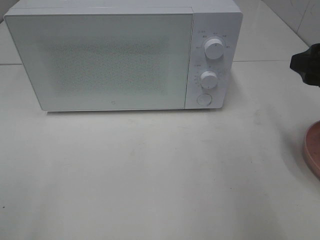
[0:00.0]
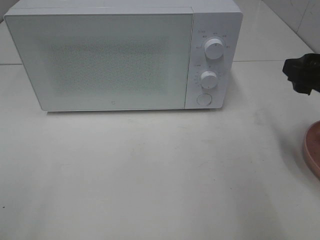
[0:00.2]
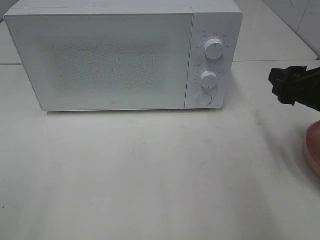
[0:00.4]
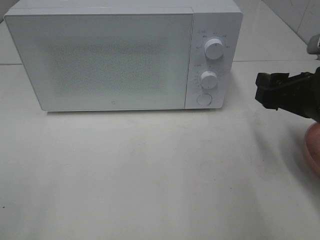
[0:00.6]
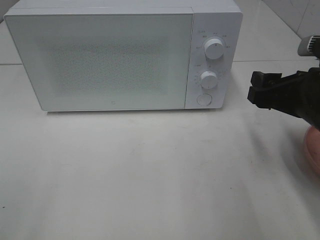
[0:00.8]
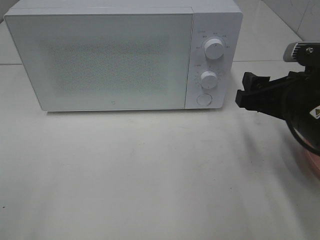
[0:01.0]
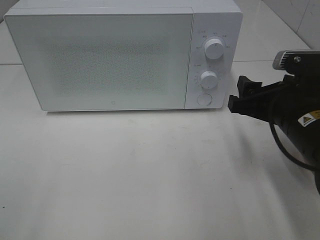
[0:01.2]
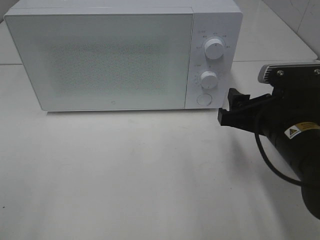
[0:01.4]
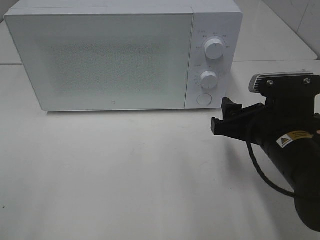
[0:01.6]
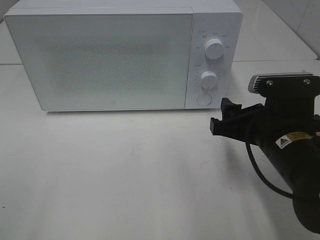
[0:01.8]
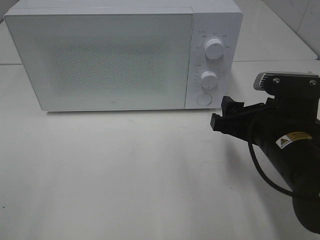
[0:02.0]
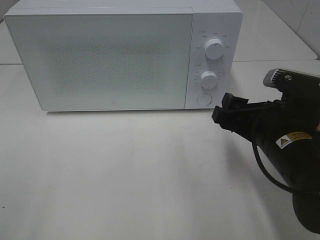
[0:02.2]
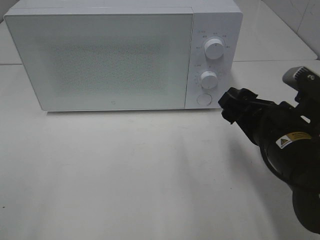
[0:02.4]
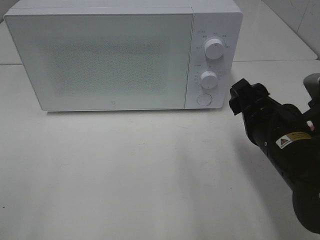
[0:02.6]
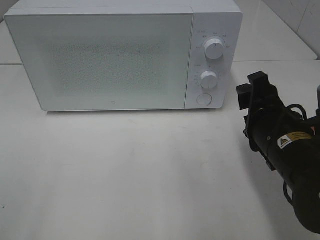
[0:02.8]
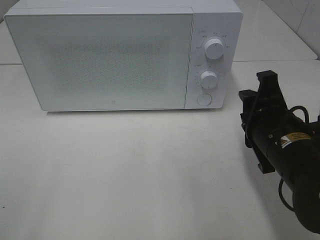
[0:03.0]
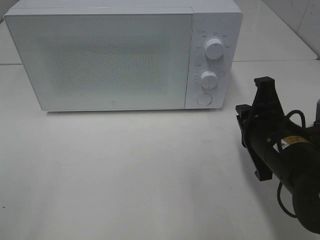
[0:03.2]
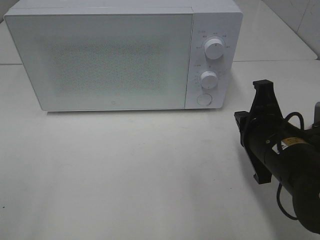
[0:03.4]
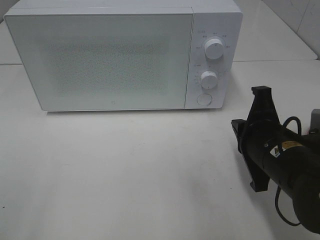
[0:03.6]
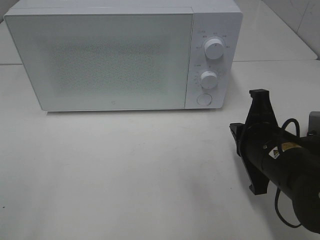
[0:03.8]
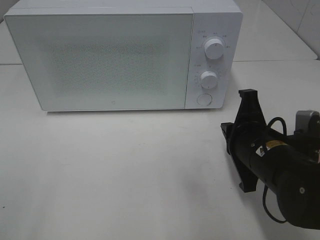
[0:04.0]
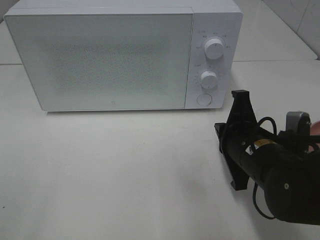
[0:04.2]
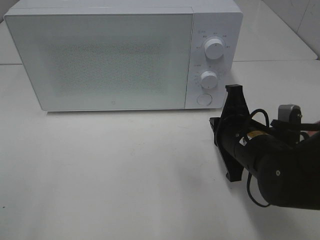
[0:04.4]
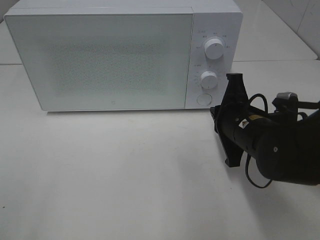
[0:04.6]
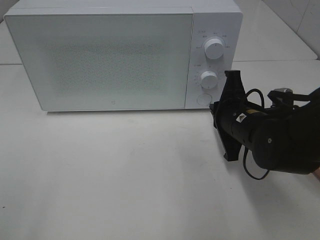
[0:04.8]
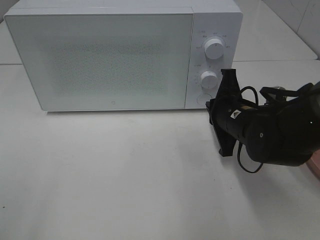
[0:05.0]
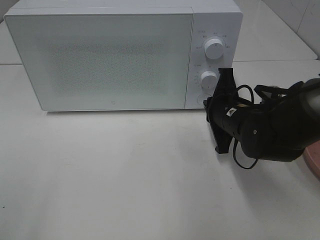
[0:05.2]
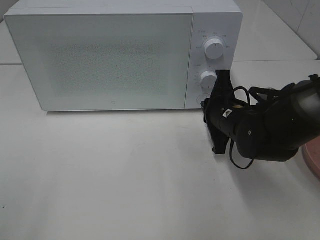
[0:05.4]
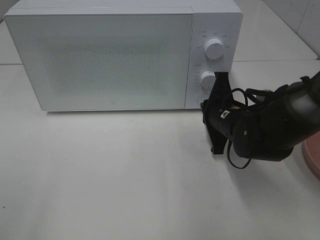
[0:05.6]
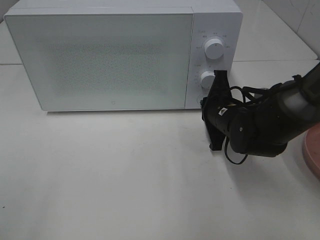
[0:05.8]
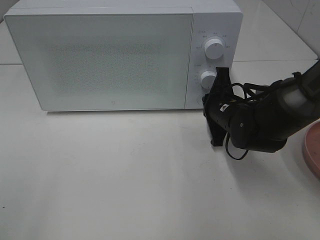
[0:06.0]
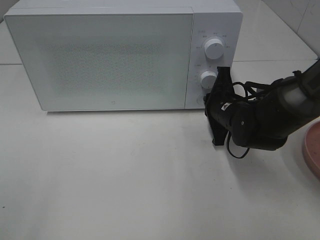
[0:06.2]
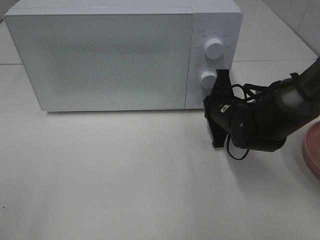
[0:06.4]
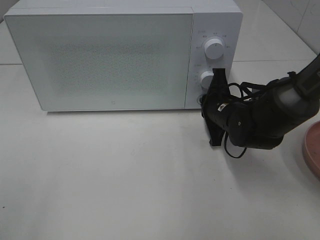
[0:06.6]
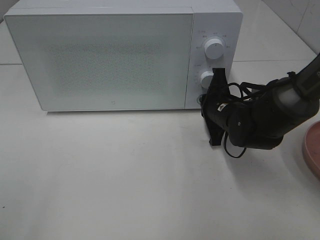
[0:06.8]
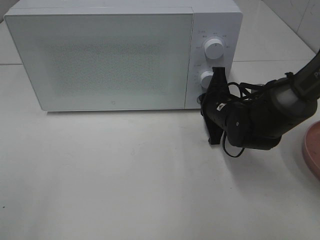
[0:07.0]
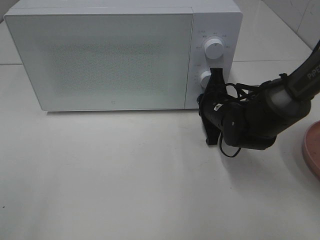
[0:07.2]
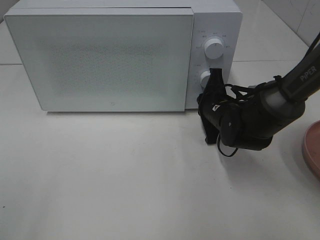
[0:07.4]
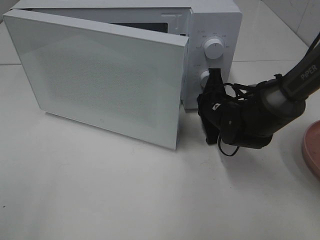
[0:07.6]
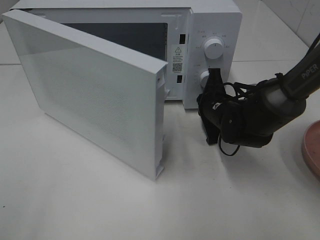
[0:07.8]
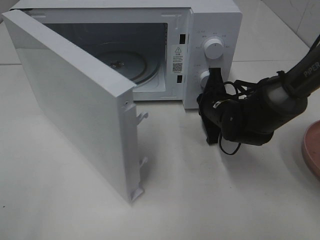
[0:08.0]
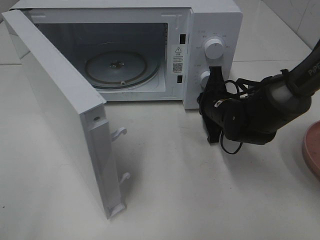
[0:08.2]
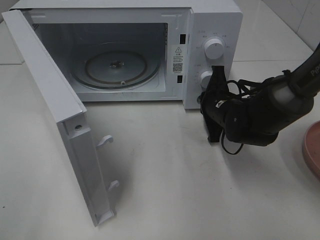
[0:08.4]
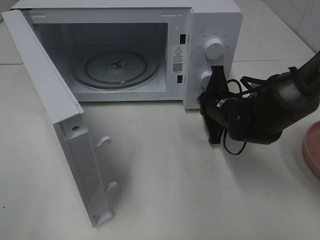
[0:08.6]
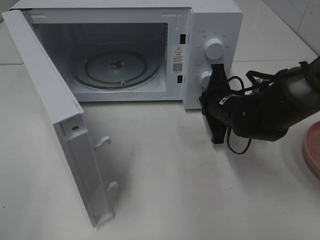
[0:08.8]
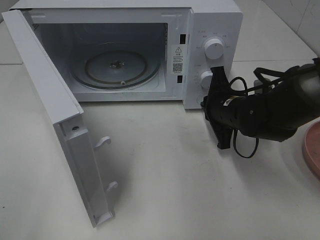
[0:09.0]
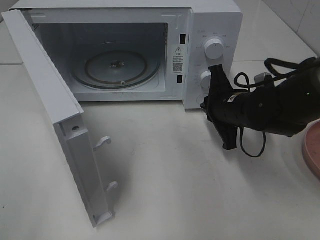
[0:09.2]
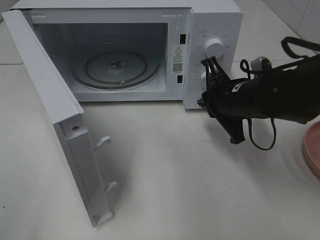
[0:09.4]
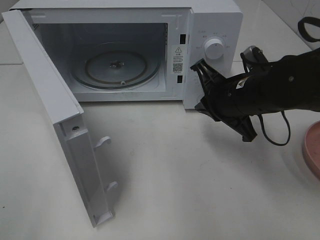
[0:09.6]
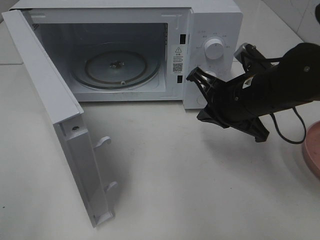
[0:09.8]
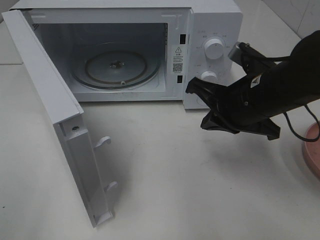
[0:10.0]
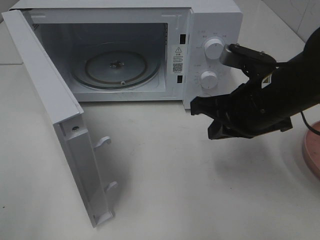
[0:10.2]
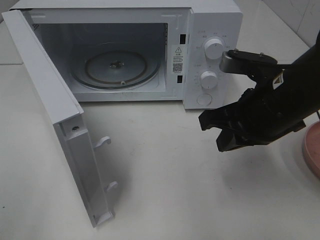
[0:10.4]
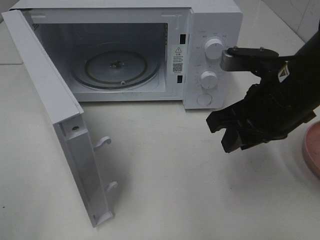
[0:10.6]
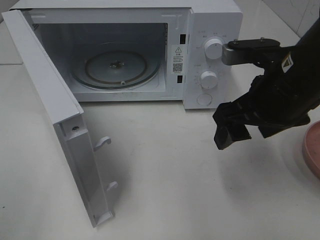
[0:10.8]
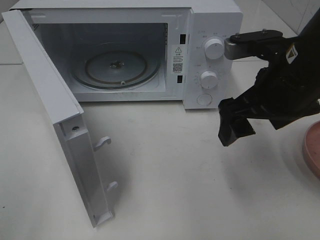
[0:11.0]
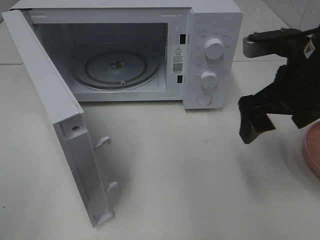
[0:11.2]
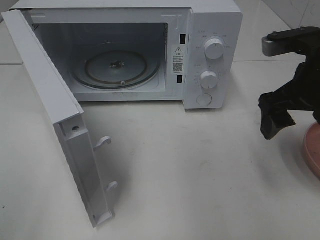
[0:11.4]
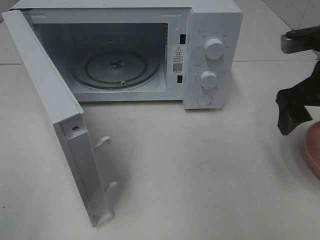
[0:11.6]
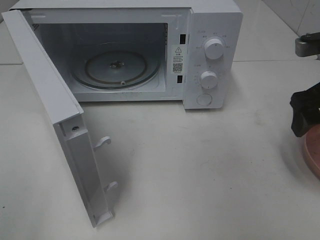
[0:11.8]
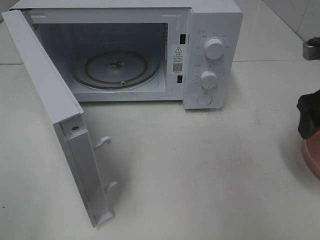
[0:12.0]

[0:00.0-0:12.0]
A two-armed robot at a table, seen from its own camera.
Task of the whole recording: Heat the burger.
Step, 0:00.0 to 0:09.2: Right hand: press the switch.
0:00.0 to 0:01.6: The right gripper is displaced to the left and downward by about 15 cm.
0:01.6 to 0:03.0: The right gripper closes up.
0:03.0 to 0:04.4: The right gripper shifts by approximately 5 cm, and closes its fingers.
0:04.4 to 0:06.0: The right gripper heads forward, covering some 10 cm.
0:06.0 to 0:07.6: The grippers make only small movements.
0:09.0 to 0:10.4: The right gripper moves upward and backward, some 15 cm.
0:10.4 to 0:12.0: The right gripper shifts roughly 15 cm to the right, and opens up.

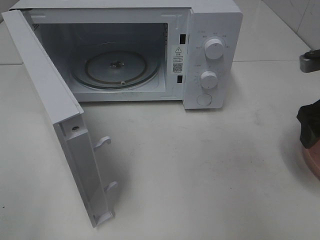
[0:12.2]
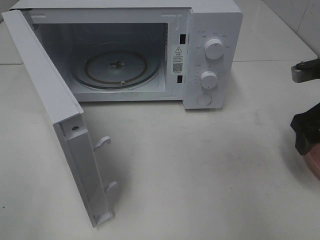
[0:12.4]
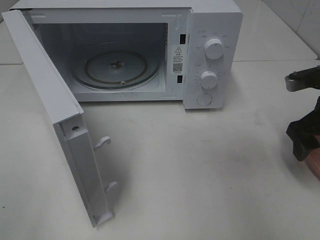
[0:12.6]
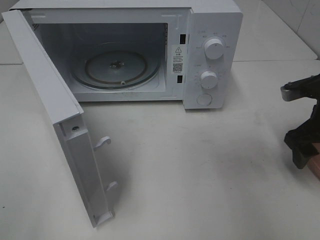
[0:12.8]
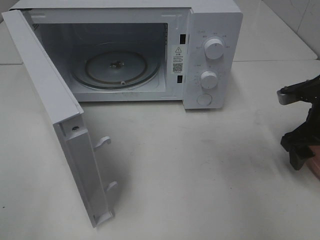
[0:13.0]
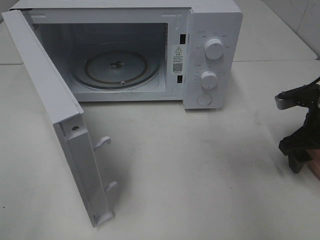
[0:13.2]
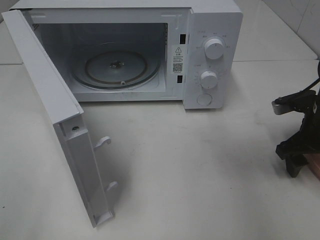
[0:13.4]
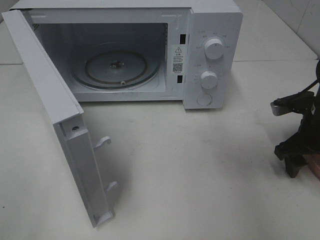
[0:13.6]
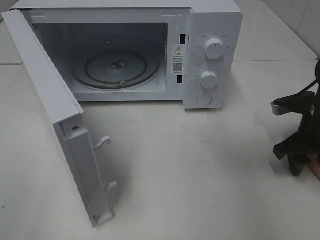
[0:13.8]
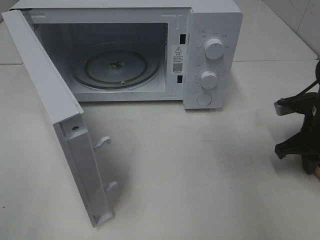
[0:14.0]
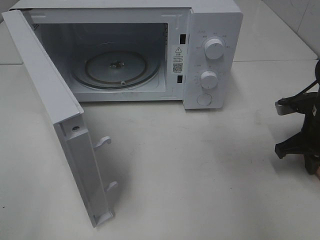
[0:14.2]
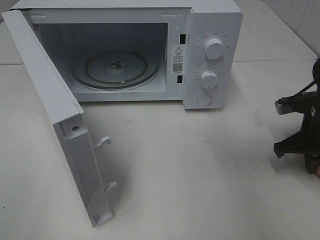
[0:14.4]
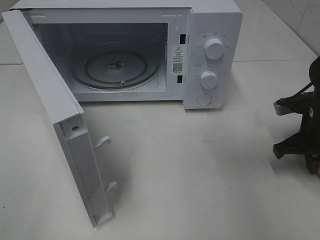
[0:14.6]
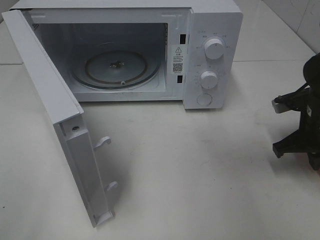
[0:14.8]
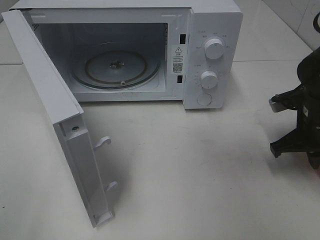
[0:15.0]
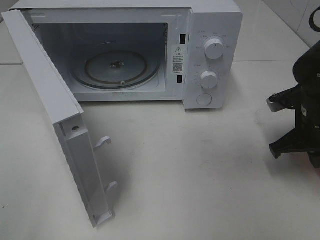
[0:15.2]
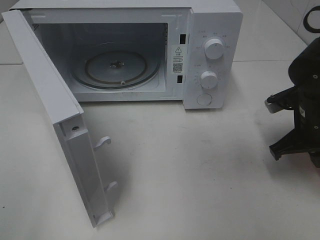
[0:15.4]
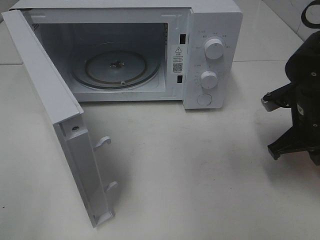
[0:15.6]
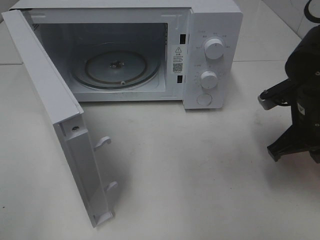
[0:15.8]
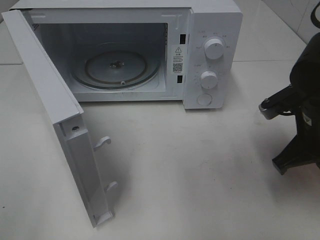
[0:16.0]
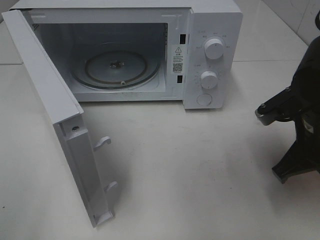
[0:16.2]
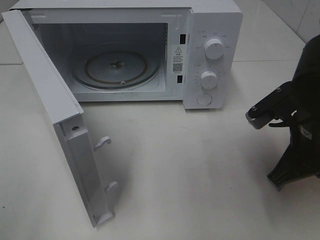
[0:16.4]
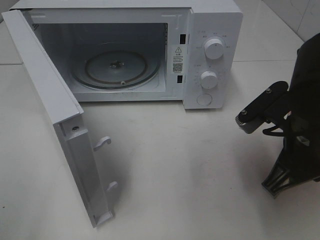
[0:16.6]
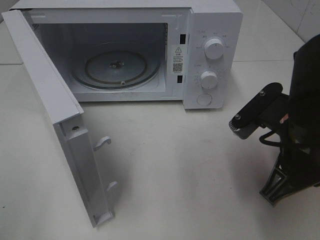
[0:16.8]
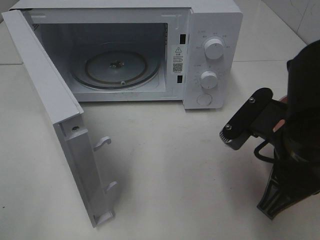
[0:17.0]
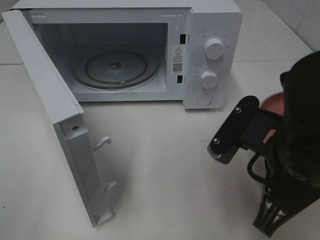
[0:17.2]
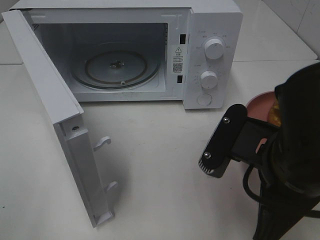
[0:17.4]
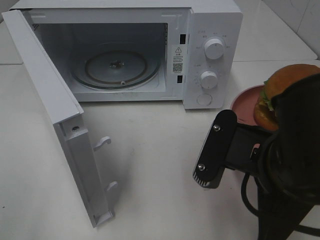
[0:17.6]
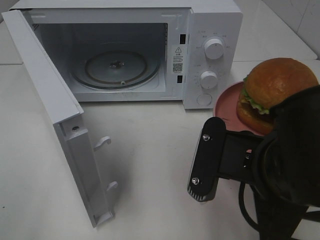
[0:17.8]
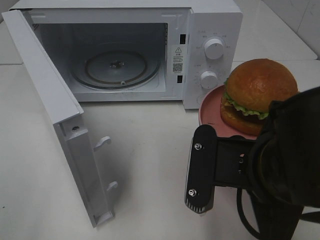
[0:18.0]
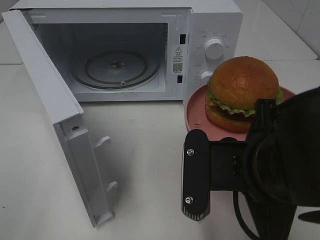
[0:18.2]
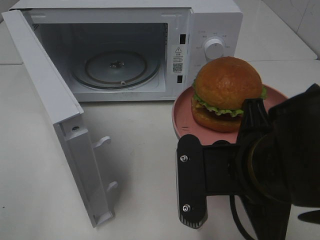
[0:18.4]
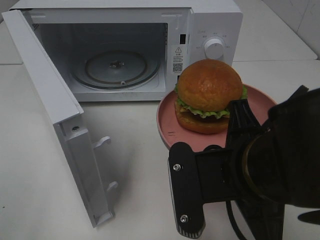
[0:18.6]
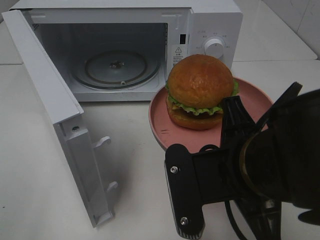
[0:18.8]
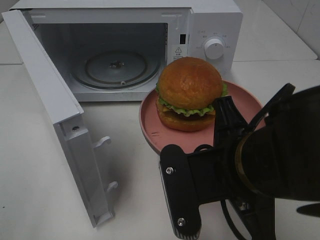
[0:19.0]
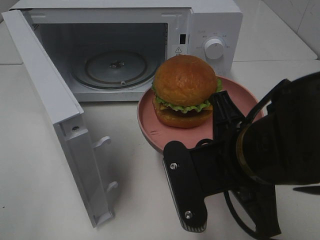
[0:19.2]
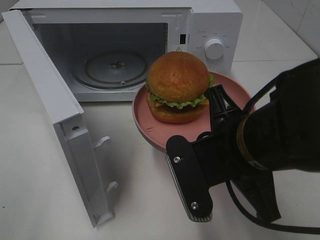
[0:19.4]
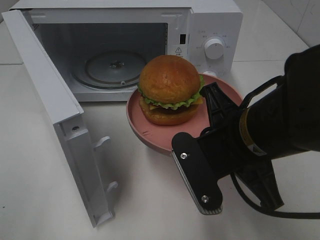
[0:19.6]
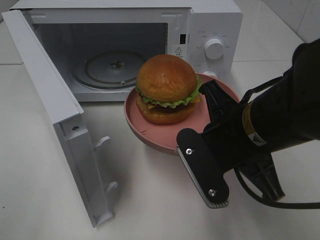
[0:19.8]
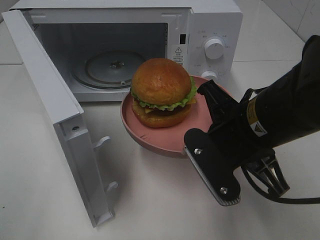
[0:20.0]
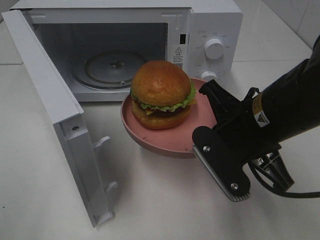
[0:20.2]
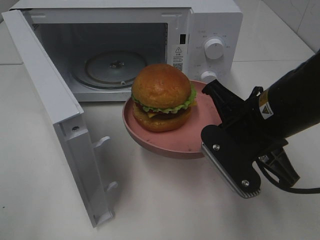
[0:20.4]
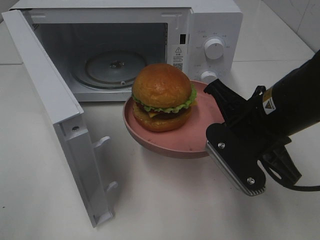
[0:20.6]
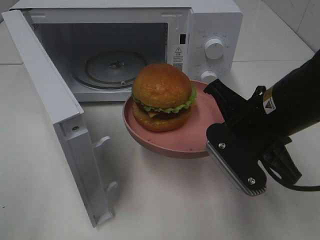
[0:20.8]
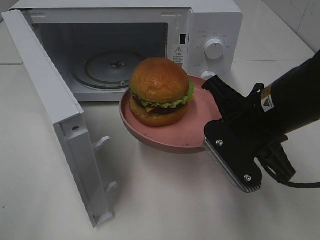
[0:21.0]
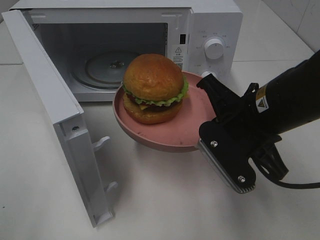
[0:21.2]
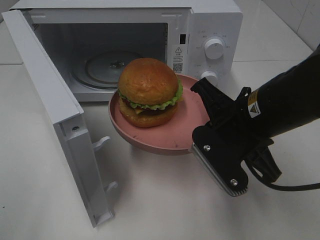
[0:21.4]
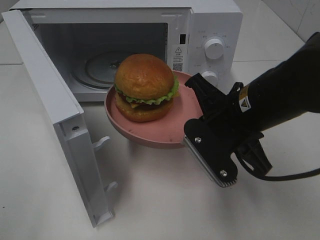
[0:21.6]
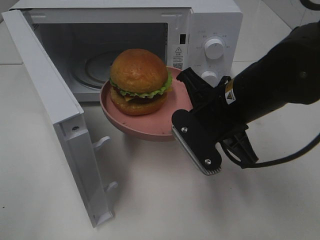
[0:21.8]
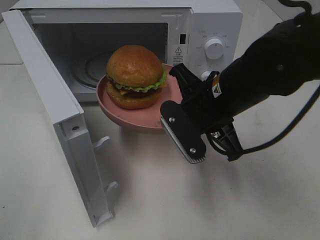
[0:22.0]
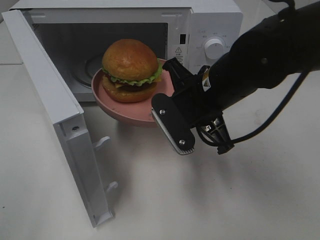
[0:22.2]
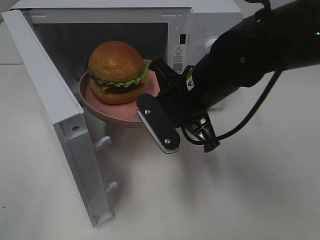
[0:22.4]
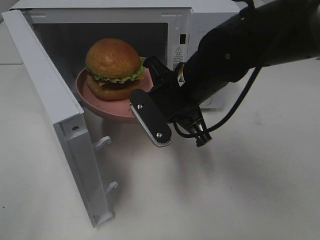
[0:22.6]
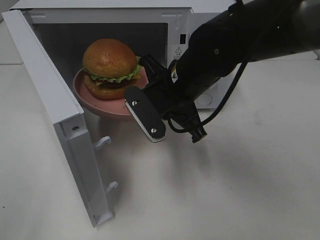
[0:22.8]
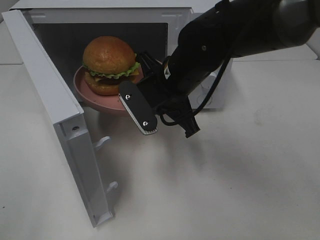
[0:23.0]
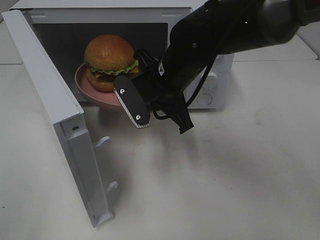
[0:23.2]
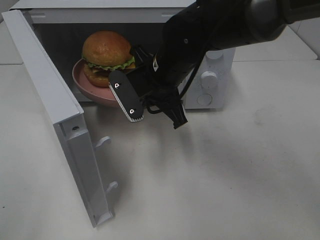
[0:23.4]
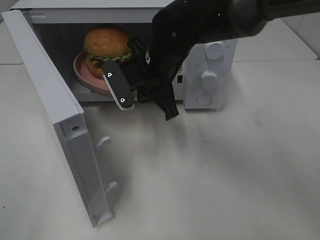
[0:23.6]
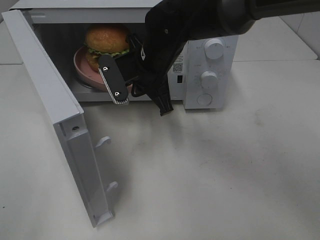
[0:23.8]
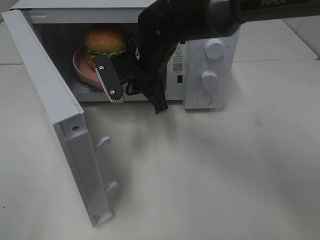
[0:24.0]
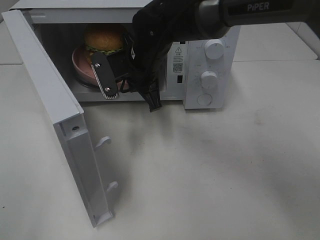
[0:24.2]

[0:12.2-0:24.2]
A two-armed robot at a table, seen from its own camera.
Task of the whole recording: Heat the burger.
Step, 0:12.2 to 0:14.6: Right hand: grab the plate with the hamburger.
0:12.2 to 0:13.8: The right gripper moves downward, some 10 cm.
0:13.8 to 0:15.2: The right gripper closes up.
0:15.2 to 0:16.6: The right gripper shifts about 15 cm backward, to the left and upward.
0:16.6 to 0:18.2: The right gripper heads to the left and backward, covering some 10 cm.
0:18.2 to 0:19.8: The right gripper goes about 5 cm forward.
0:19.8 to 0:21.2: There are only small adjustments of the grippers.
0:21.2 to 0:22.6: The right gripper travels to the left and forward by some 10 cm.
0:22.6 to 0:24.2: The right gripper is displaced forward and to the left by roughly 10 cm.
